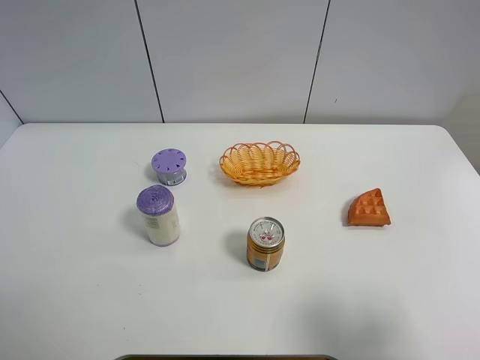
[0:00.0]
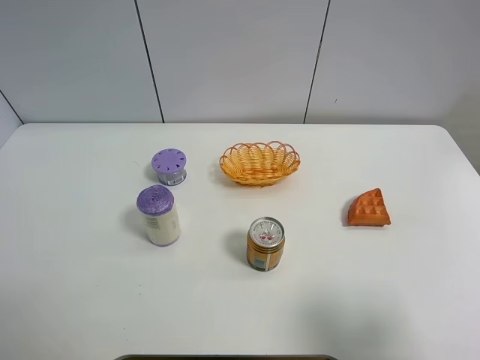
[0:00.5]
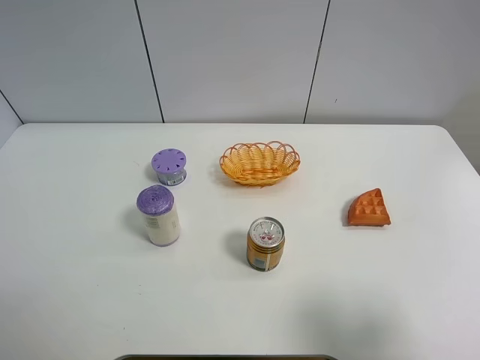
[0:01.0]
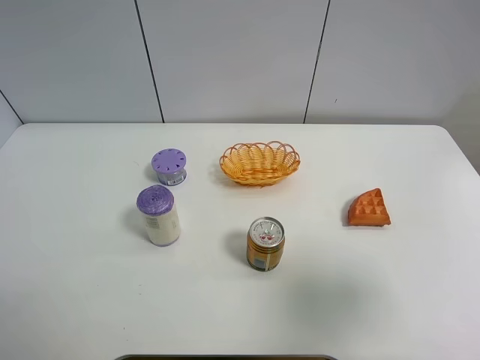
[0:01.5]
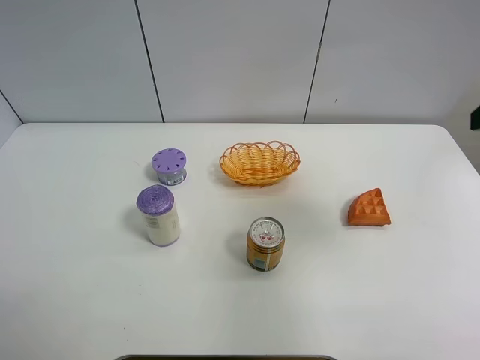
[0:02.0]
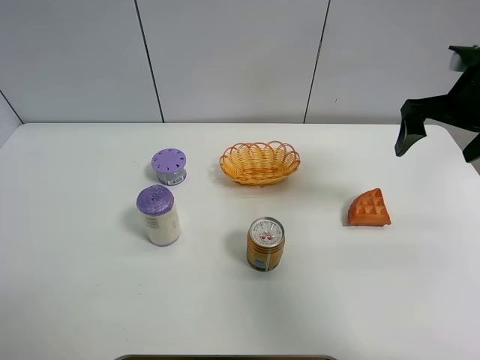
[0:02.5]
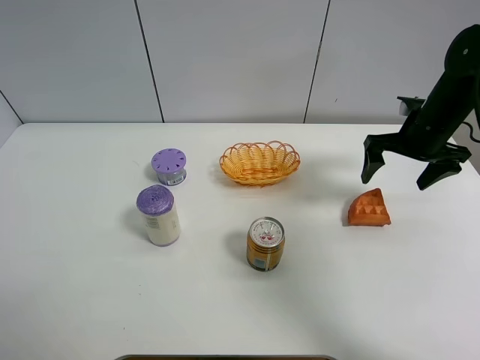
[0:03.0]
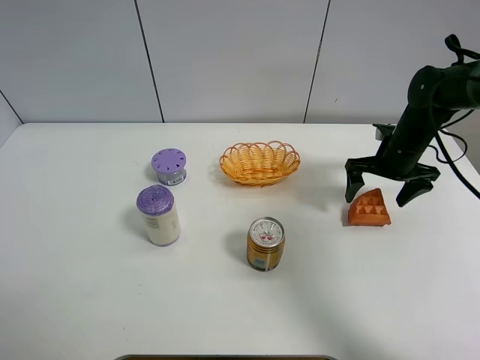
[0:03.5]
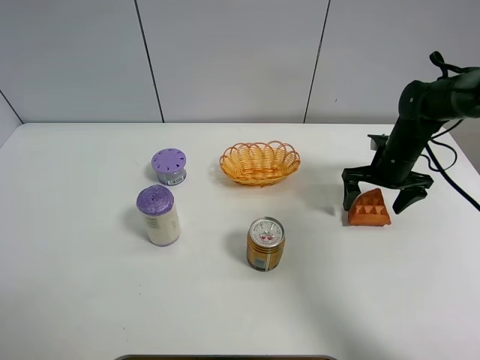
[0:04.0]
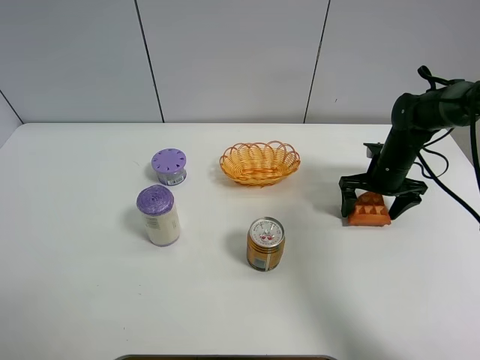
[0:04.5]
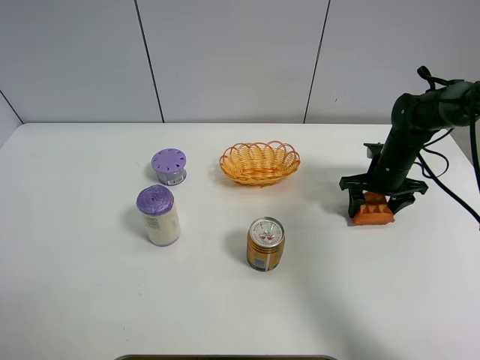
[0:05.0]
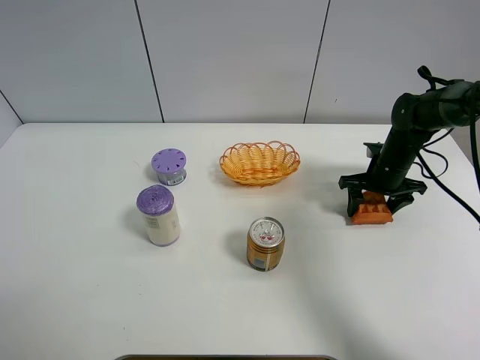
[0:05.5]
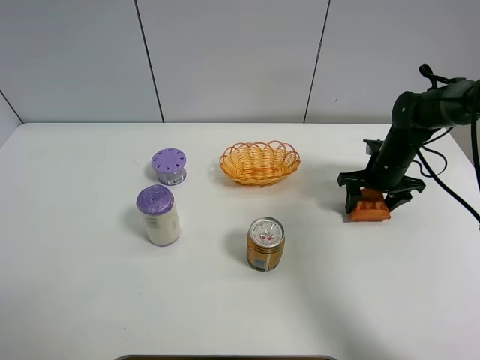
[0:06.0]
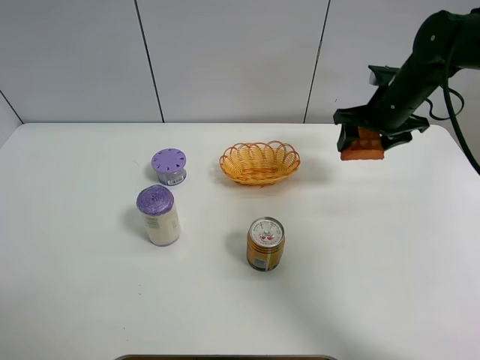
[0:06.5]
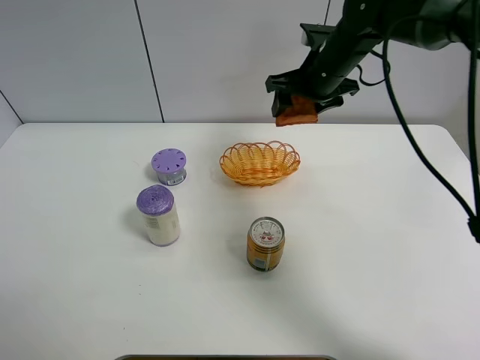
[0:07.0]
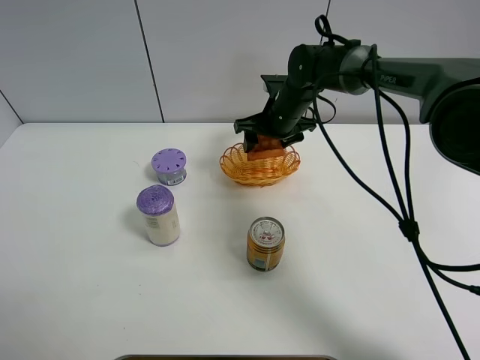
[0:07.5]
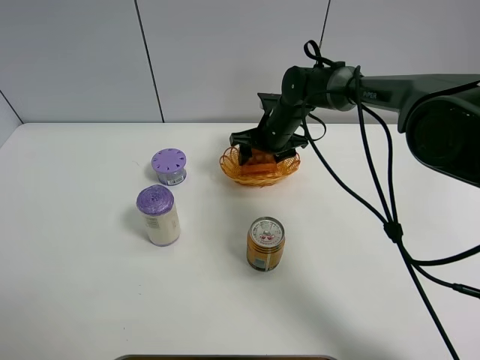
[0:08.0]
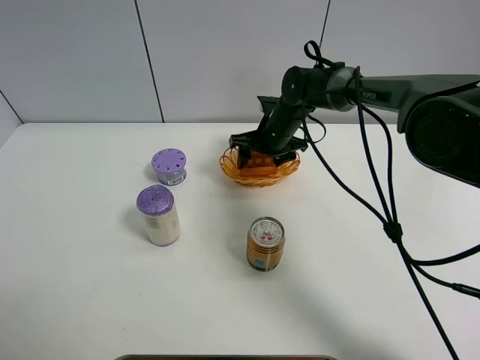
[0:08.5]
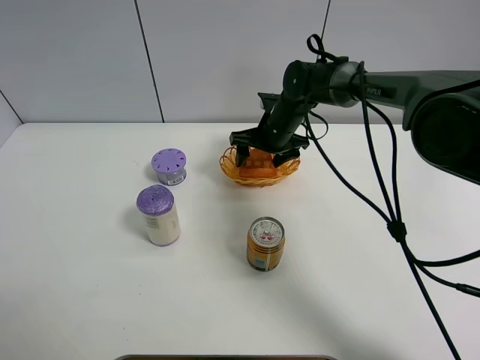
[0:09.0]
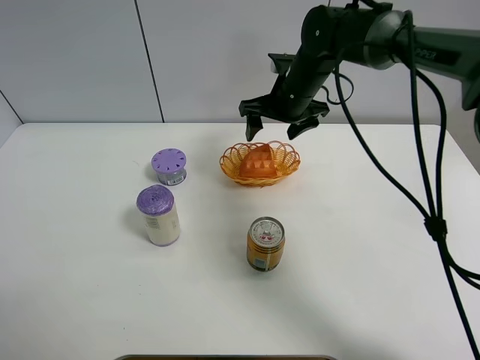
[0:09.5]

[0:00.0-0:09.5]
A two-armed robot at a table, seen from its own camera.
Task of the whole recording: Put the bakery in the basket.
Step, 0:00.0 to 0:04.5: Grasp the bread with right gripper.
Step, 0:05.0 to 0:09.0: Place the bread in the basket with right gripper.
0:00.0 to 0:02.0: The right gripper moves forward and upward, about 25 cm.
0:02.0 to 0:04.0: The right gripper heads downward and forward, covering roughly 35 cm, and opens.
0:04.0 to 0:05.5: The right gripper closes its fingers.
0:05.5 to 0:07.5: The right gripper is displaced to the left by some 20 cm.
0:07.5 to 0:09.5: The right gripper shifts approximately 5 cm upward, and opens its fingers.

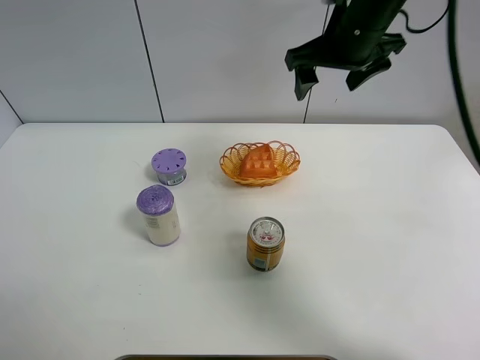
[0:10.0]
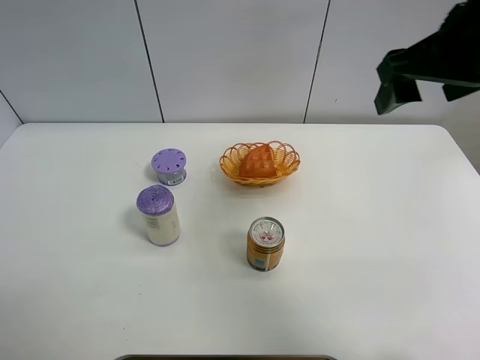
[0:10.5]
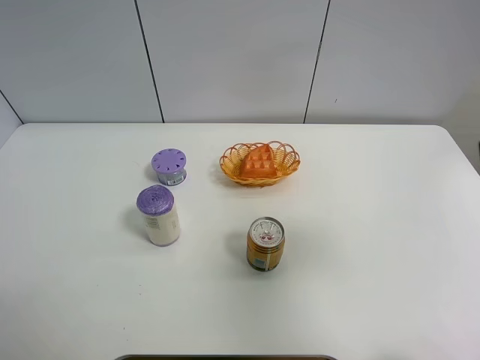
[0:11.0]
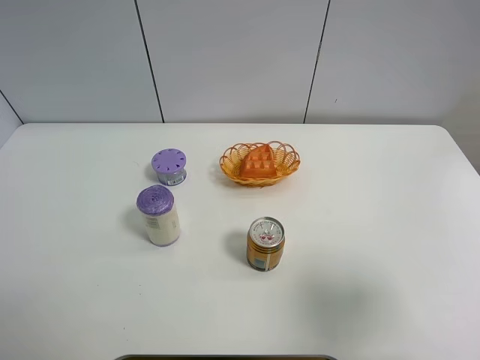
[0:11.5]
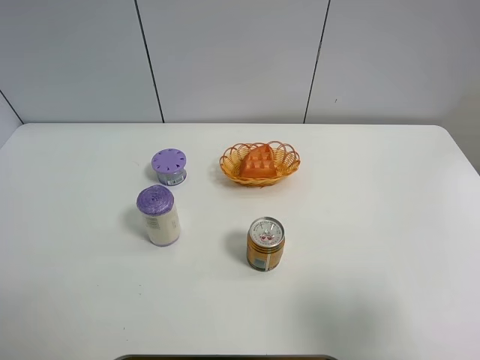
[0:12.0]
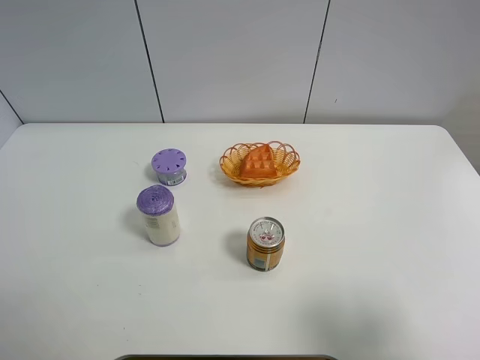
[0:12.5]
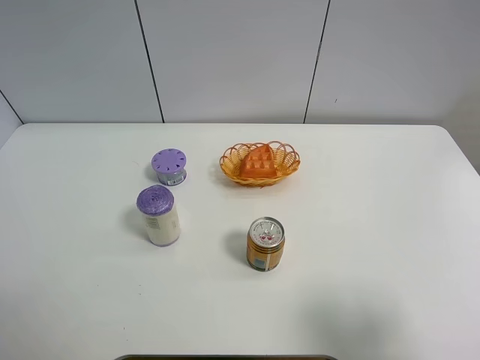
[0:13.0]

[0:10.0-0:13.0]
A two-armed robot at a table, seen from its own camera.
Task of the whole recording: Put the bakery in the basket.
0:10.0 to 0:11.5: The right gripper goes approximately 35 cm backward and to the right.
0:11.5 to 0:13.0: The grippers move only a little.

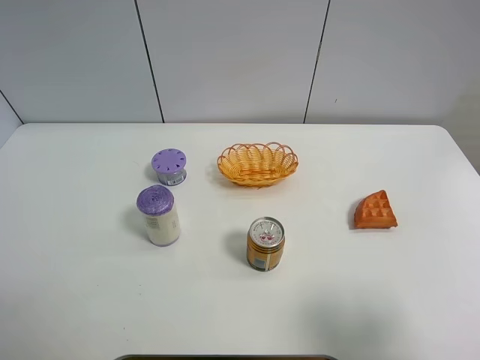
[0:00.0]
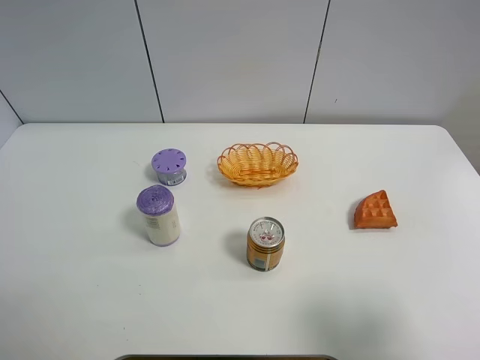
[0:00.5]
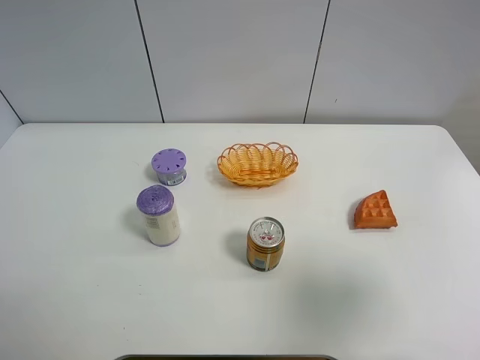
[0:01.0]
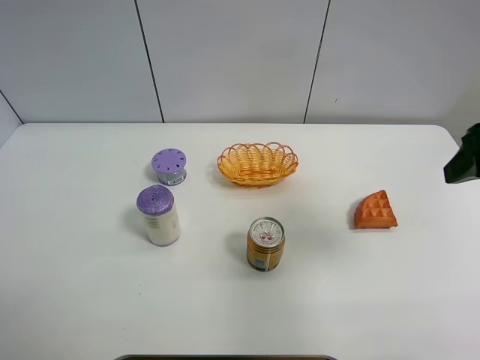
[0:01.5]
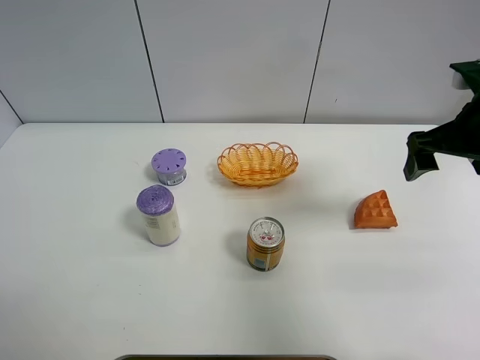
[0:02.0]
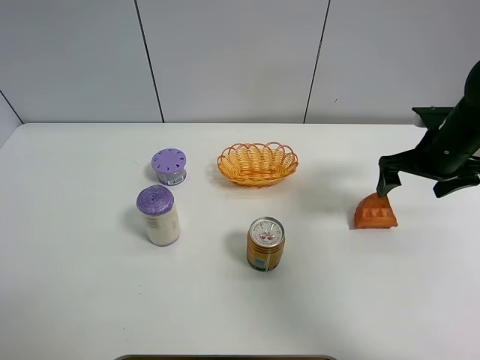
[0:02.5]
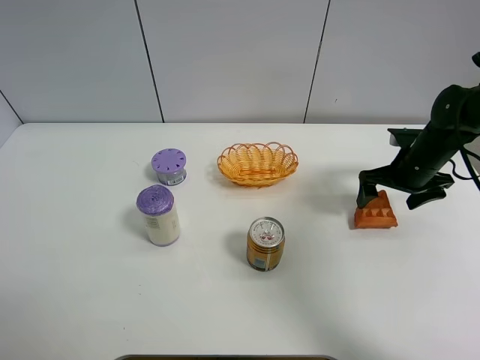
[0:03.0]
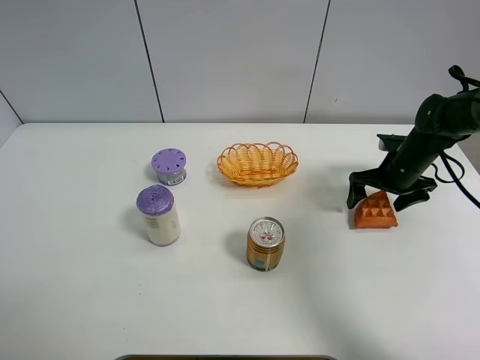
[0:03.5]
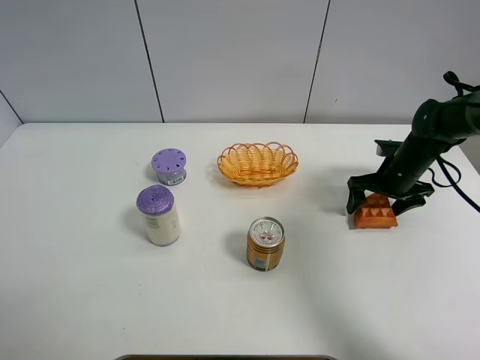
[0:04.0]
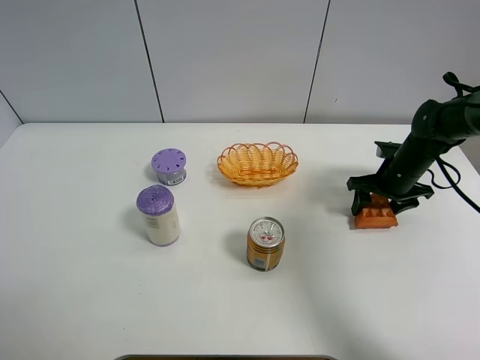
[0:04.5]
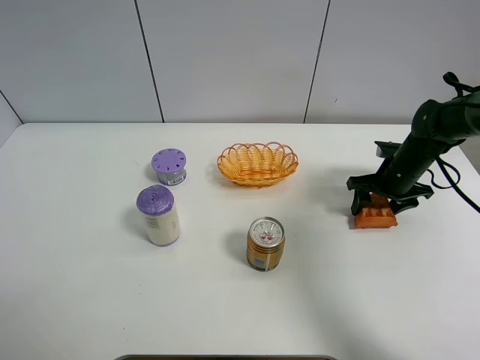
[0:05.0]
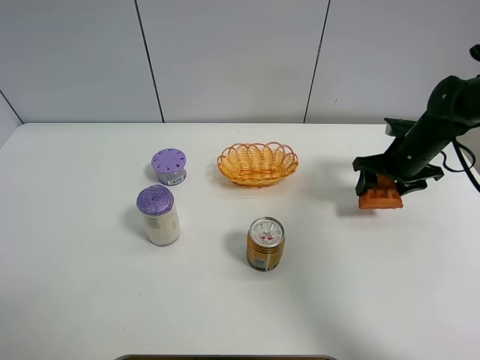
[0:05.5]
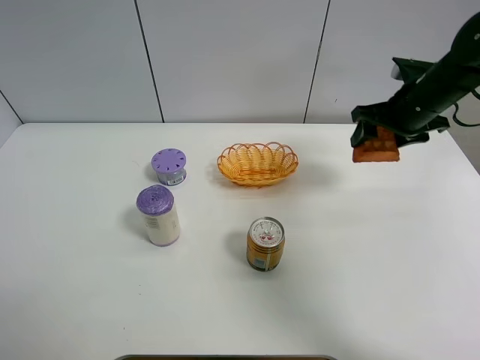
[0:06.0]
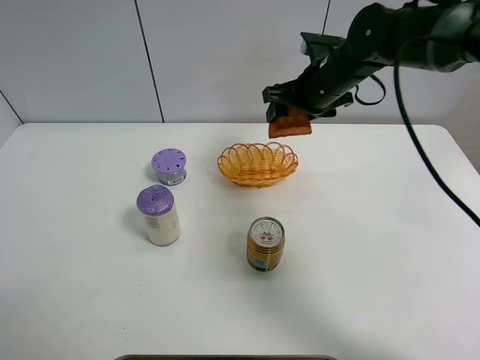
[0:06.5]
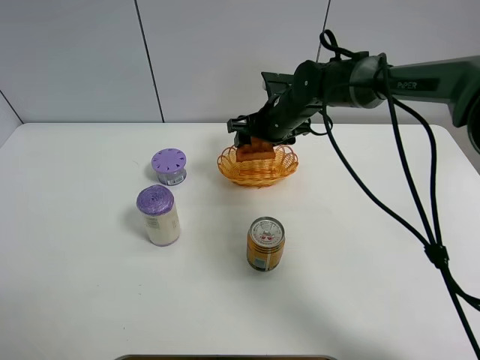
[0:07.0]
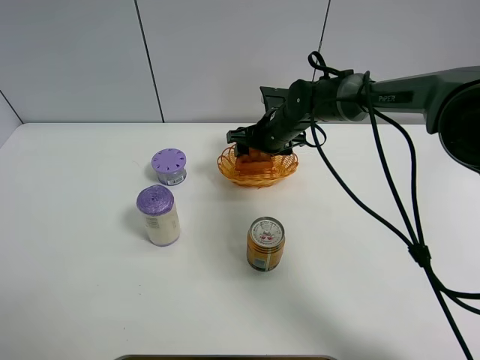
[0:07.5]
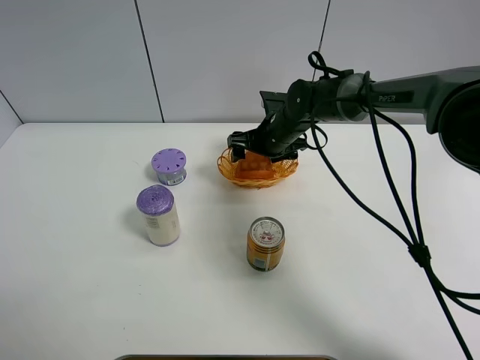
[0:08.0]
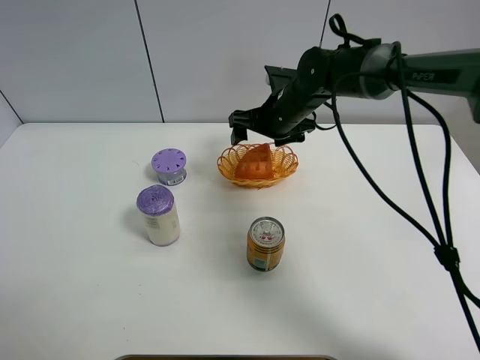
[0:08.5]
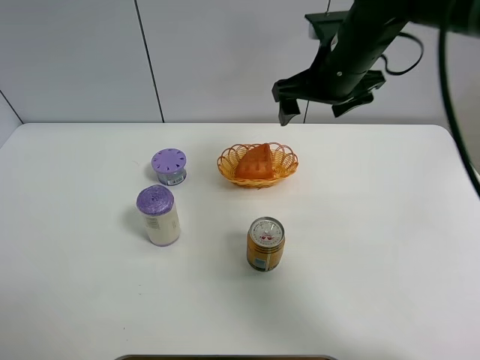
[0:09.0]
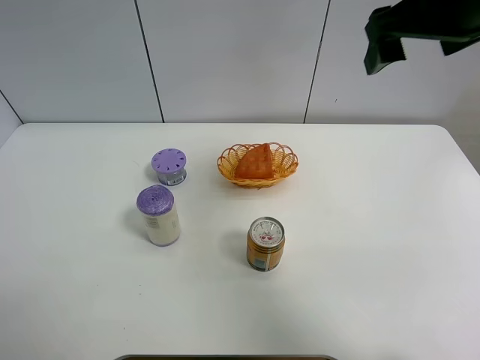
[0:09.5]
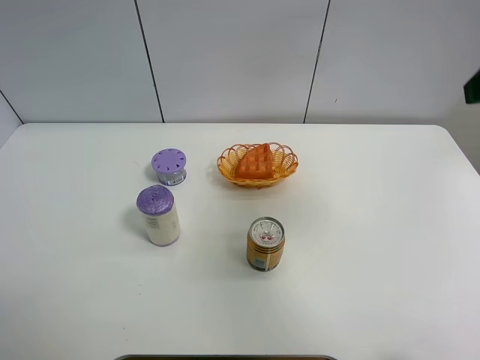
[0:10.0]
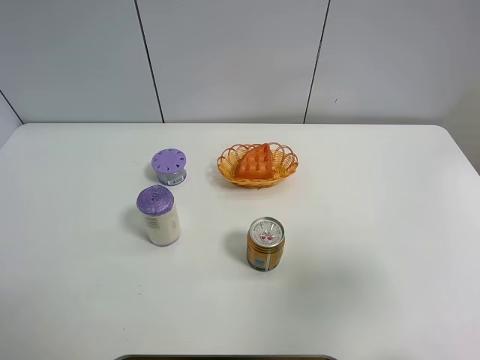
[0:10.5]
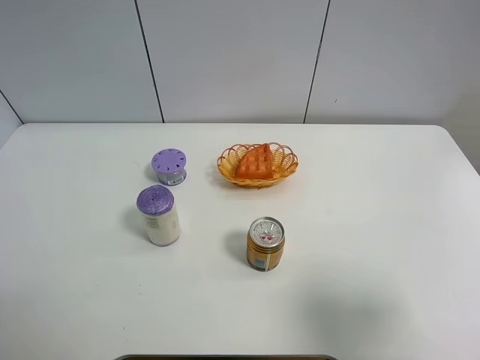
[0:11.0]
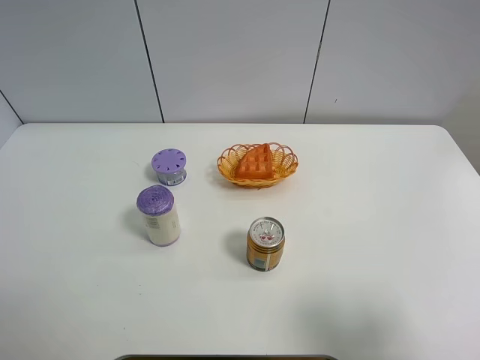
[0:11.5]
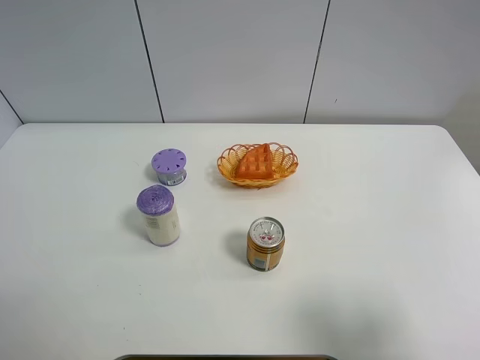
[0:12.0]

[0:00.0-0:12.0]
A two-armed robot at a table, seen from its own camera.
Task of the whole recording: Put the bakery in the basket.
Step, 0:00.0 to 0:04.0: Grasp the bread with right gripper.
Step, 0:04.5 to 0:08.5: Place the bread in the basket with right gripper.
0:00.0 to 0:02.0: The right gripper heads forward, covering roughly 30 cm, and opens its fingers.
0:02.0 to 0:04.0: The right gripper heads downward and forward, covering roughly 20 cm.
0:04.0 to 0:06.0: The right gripper is displaced upward by about 15 cm, and closes its fingers.
0:06.0 to 0:08.0: The right gripper shifts roughly 20 cm to the left and downward, and opens up.
0:08.0 to 0:10.0: The right gripper is displaced upward, backward and to the right by about 40 cm.
0:10.0 to 0:12.0: The right gripper shifts approximately 20 cm backward and downward.
